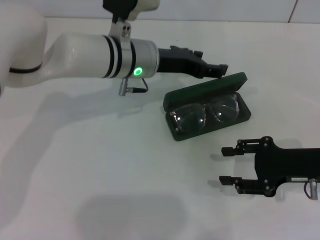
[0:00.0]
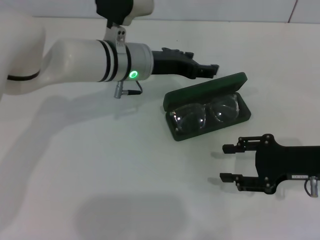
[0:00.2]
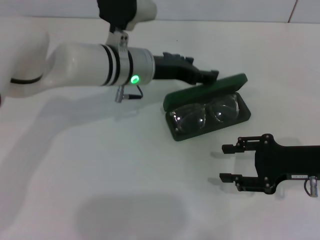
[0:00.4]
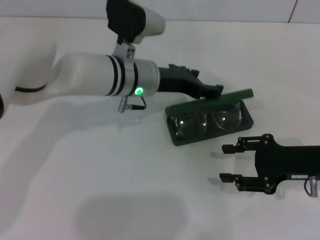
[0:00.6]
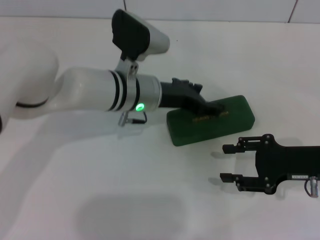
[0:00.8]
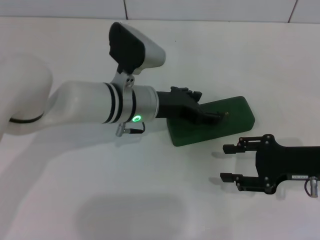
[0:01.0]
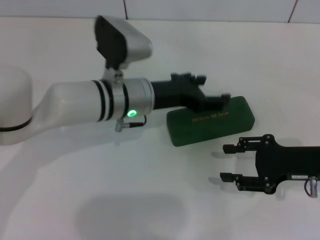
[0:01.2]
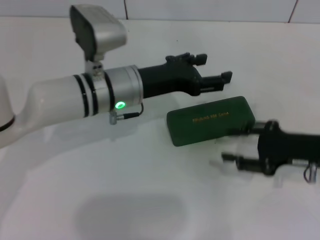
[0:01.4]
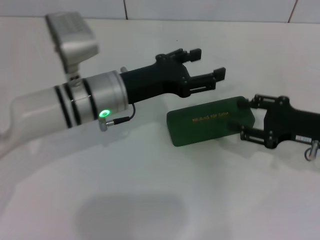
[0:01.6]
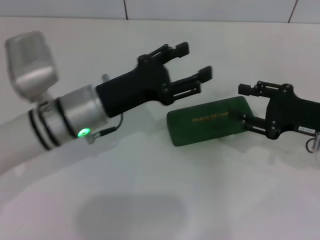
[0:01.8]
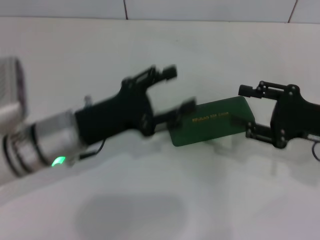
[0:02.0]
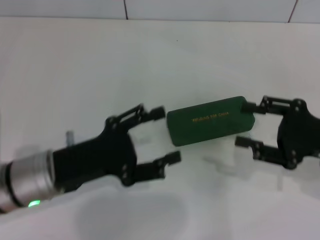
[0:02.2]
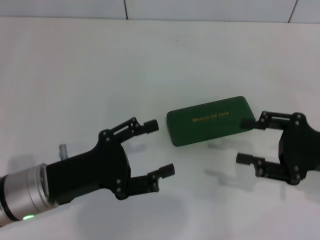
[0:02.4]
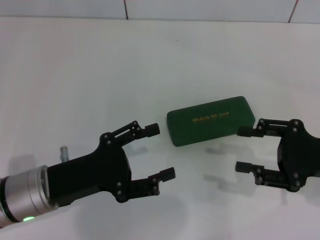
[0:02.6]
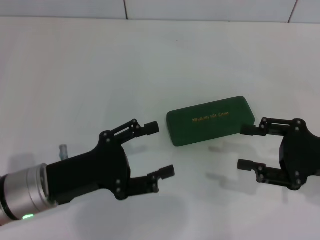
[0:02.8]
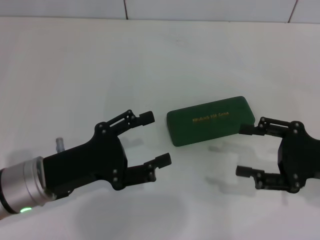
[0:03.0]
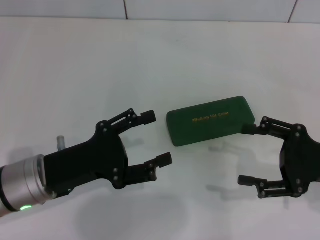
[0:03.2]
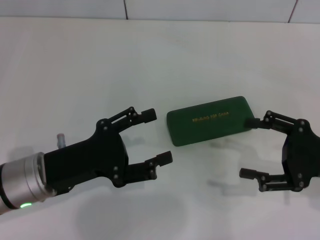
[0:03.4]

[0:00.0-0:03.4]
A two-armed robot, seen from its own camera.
0:00.0 to 0:01.6: The left gripper is displaced backward by about 5 cm.
0:01.6 to 0:03.4: The right gripper travels backward by about 5 cm; the left gripper heads backward and to the left, covering approximately 15 cm.
